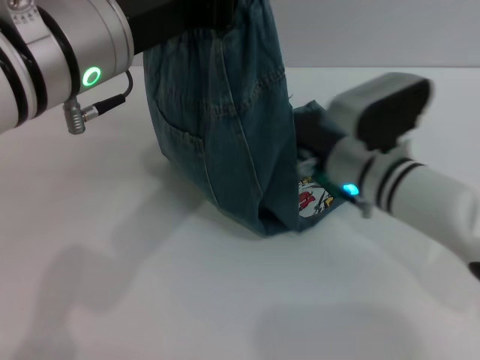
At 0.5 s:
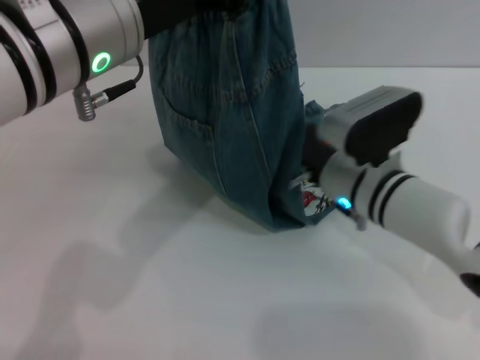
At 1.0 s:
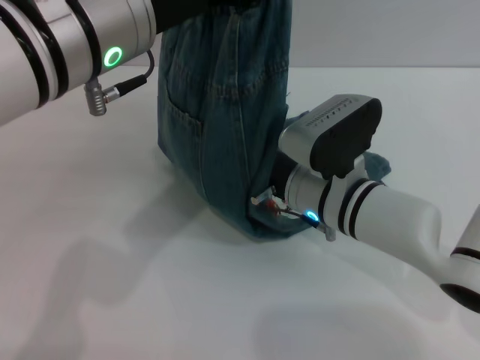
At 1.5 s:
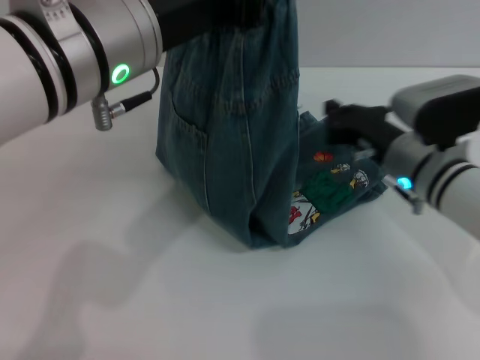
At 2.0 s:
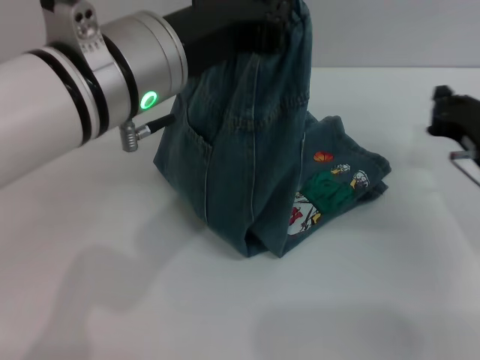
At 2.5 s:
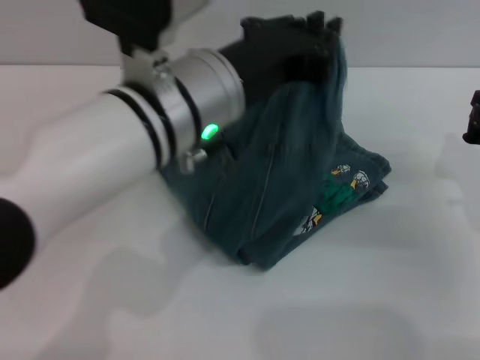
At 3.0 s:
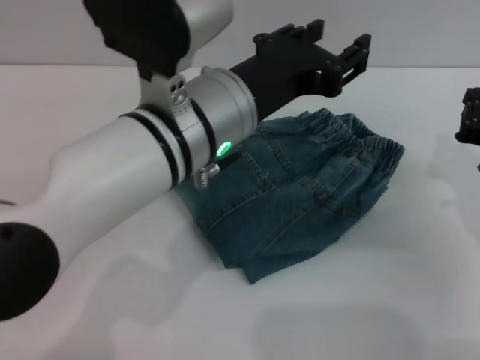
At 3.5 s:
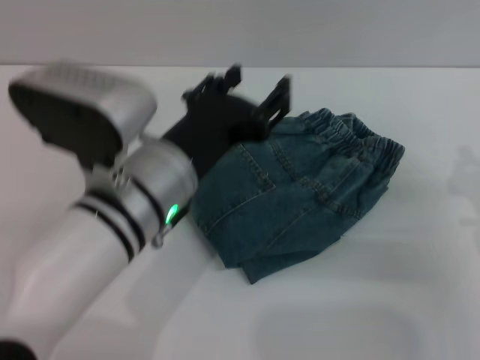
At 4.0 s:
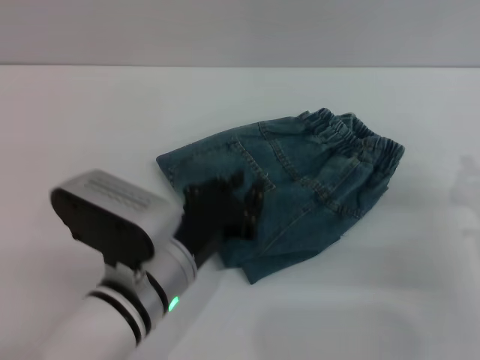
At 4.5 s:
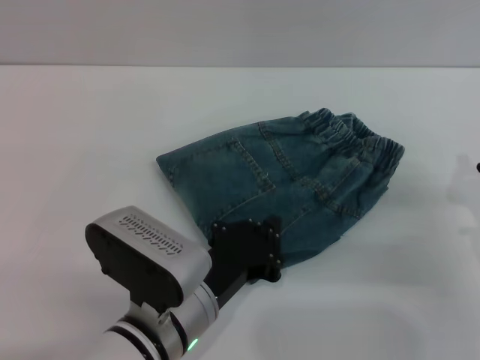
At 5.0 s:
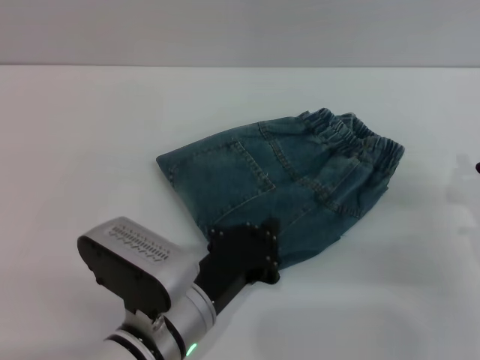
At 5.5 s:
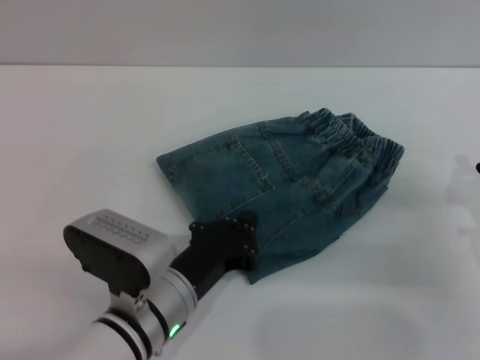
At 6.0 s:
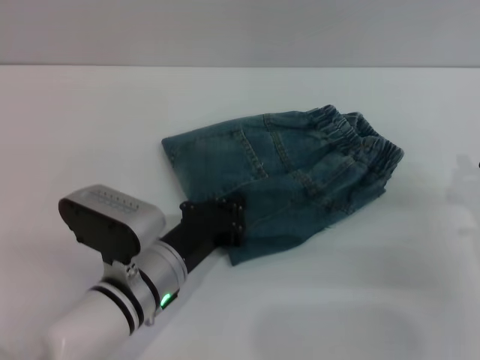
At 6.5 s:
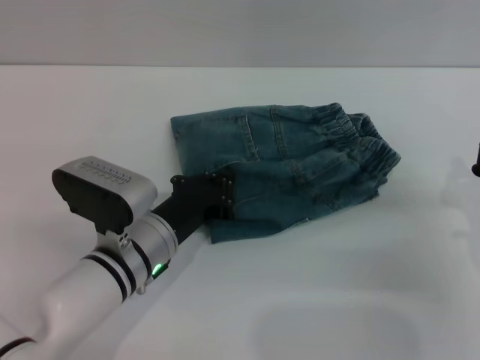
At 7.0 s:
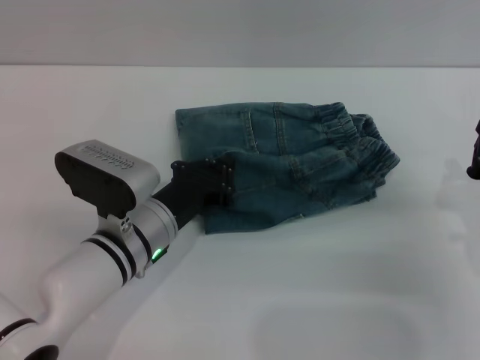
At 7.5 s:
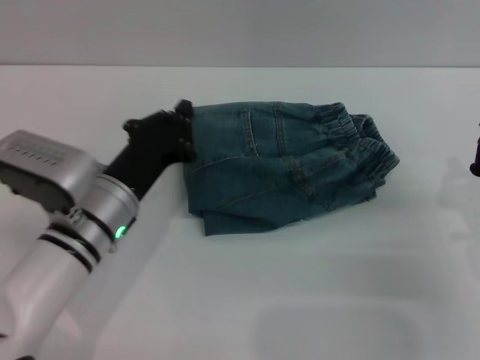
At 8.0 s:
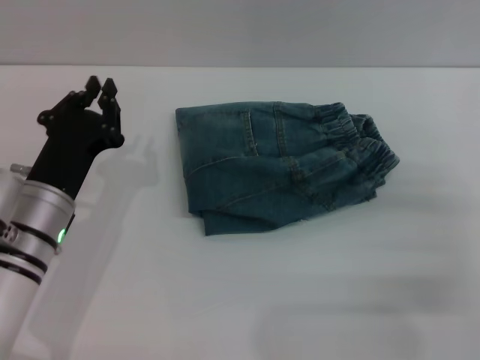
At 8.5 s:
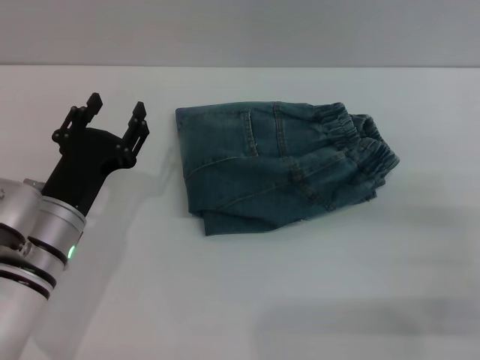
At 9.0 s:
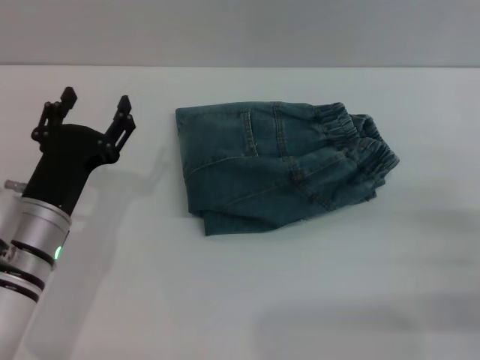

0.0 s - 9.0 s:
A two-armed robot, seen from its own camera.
Step, 0.0 s - 3.0 s: Fold the pants from left to right with the left gripper.
Step, 3.5 s - 6.0 s: Place the folded trousers onto the center area with the left grippers.
0.0 s - 2.0 s: The right gripper shifts roughly 15 cm to the right.
2.0 s - 4.5 s: The right gripper moves backward, about 5 cm, while the left gripper moves downward and backward, about 20 cm, and opens and closes again.
4.5 s - 7.0 s: The left gripper is displaced forward by roughly 10 cm.
7.0 s - 9.0 s: The right gripper moves to the right, approximately 5 cm, and opens. Meanwhile the left gripper heads to the left, covering approximately 10 cm, and opens its fingers.
